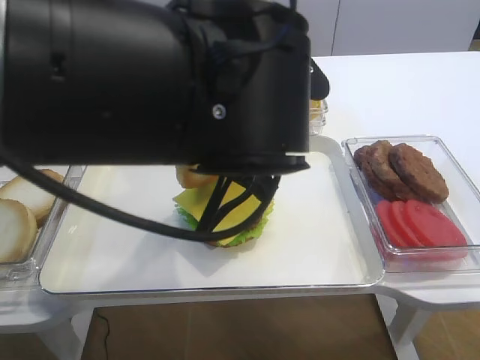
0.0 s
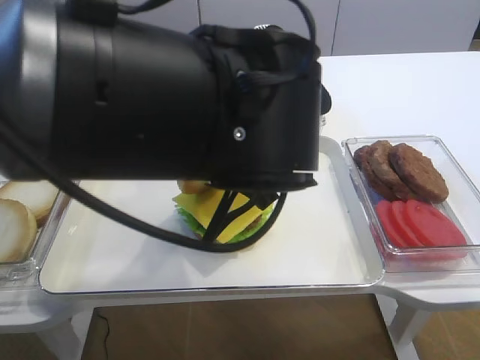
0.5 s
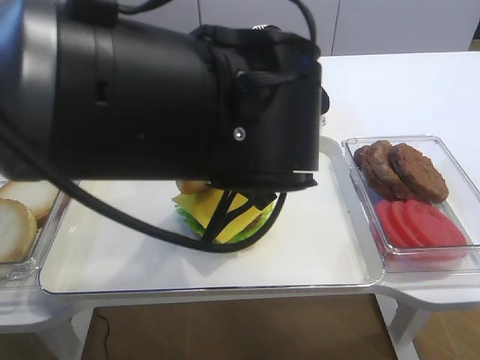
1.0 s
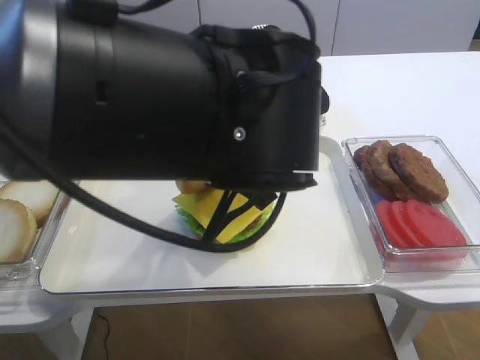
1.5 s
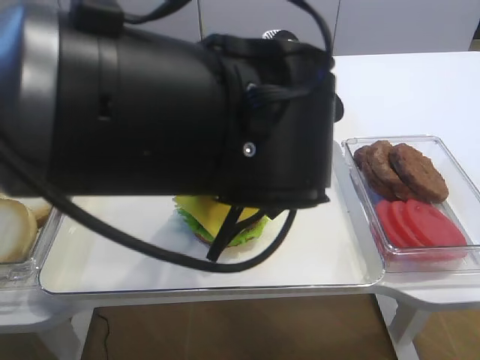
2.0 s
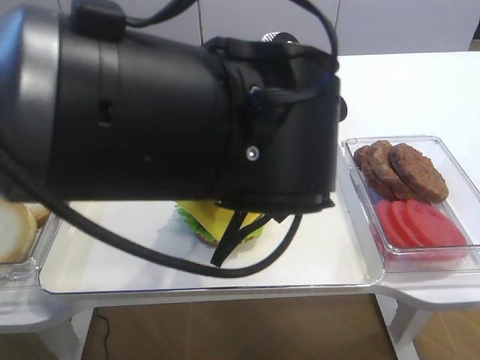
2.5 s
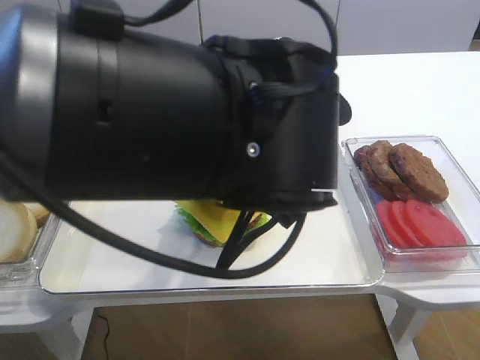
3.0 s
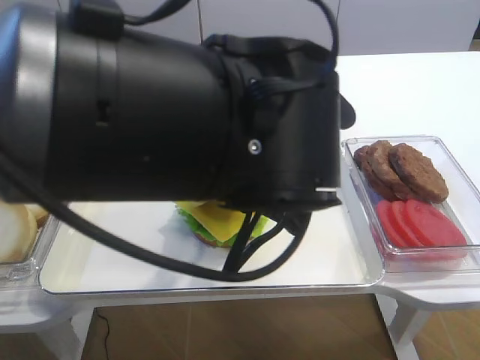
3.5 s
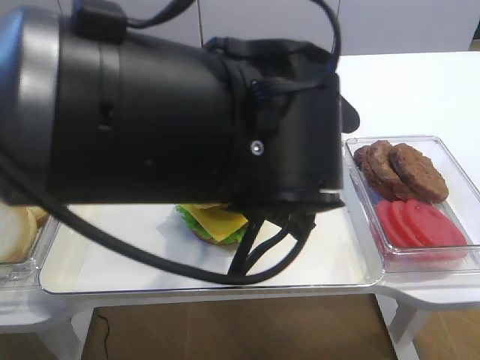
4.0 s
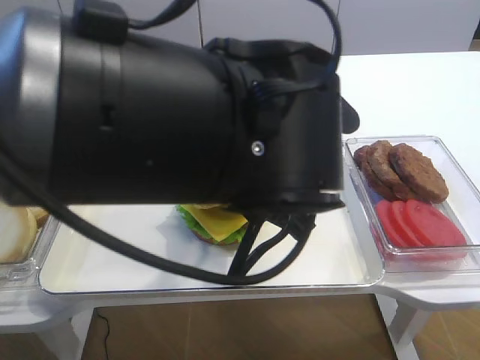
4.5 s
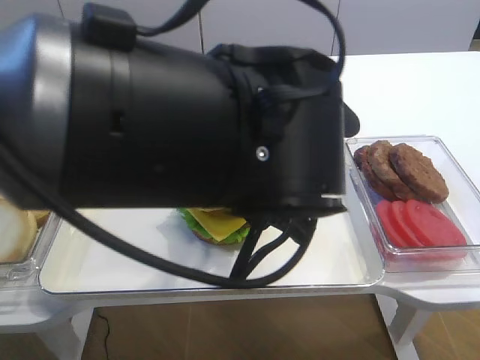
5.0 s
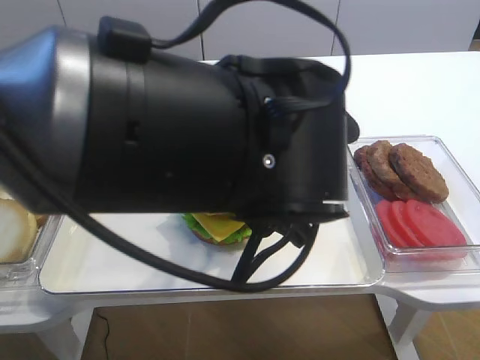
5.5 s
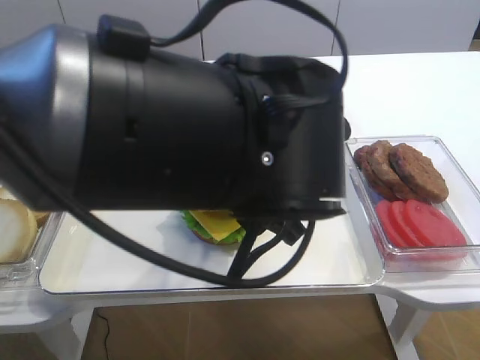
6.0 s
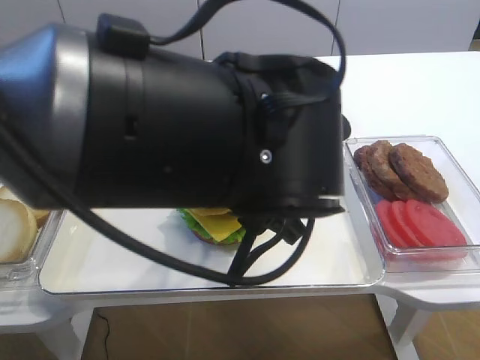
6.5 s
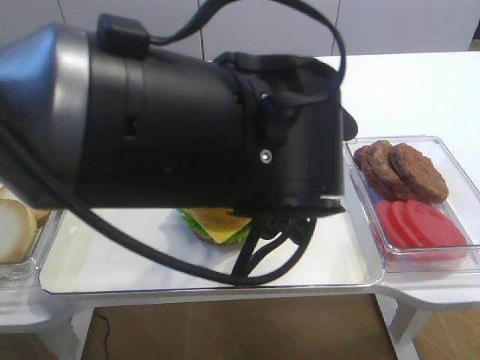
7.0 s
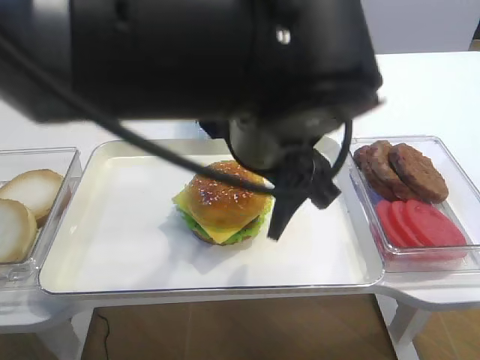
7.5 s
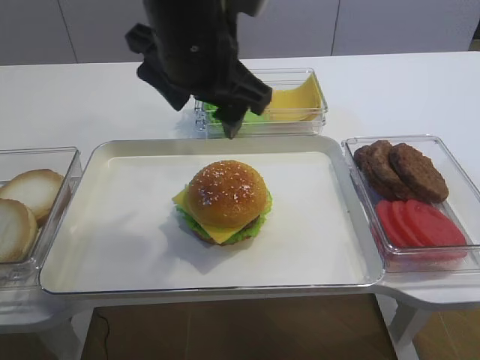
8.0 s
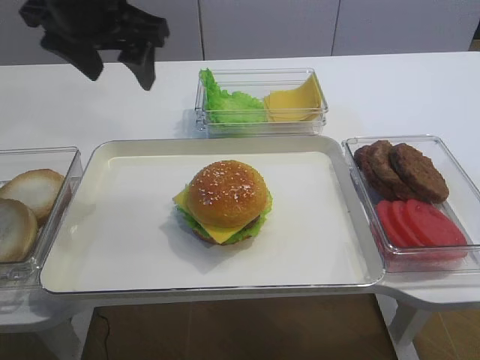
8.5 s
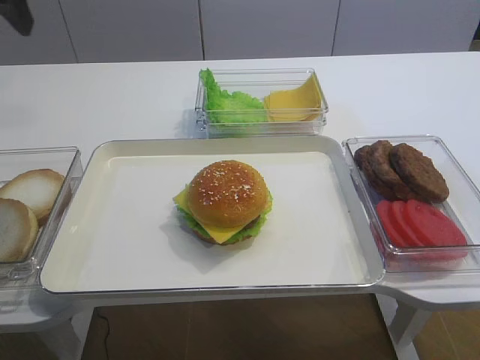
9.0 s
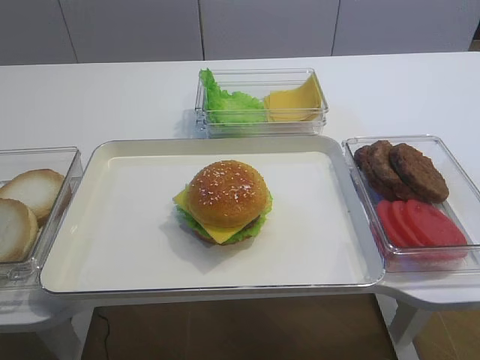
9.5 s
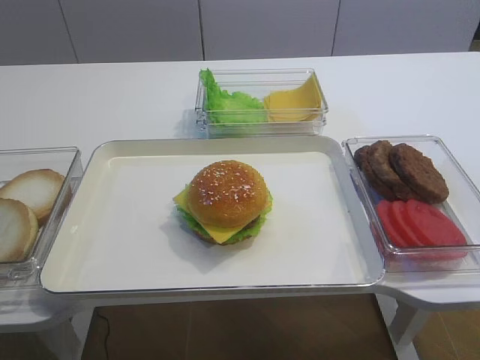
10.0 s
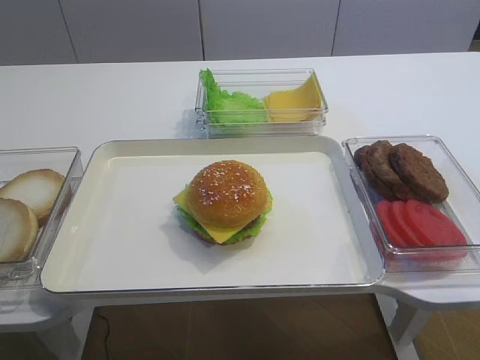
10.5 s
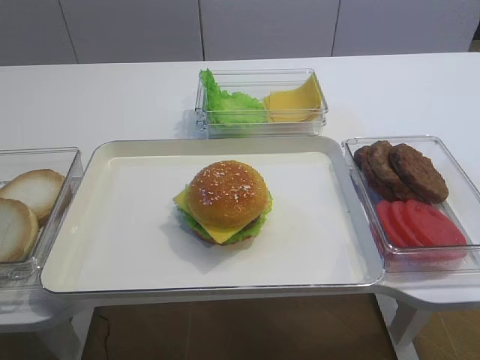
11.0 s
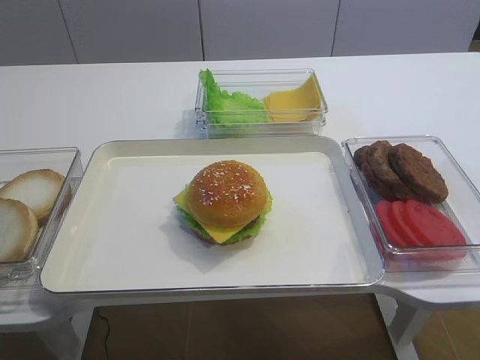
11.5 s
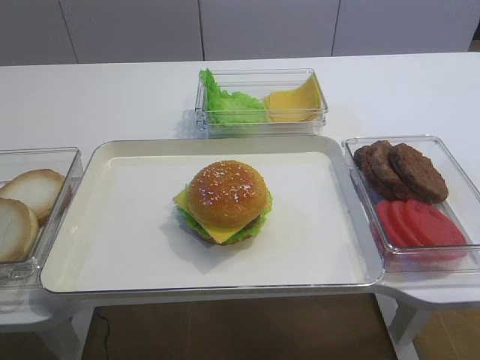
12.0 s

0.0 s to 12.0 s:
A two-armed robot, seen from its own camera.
Step, 0.0 to 7.0 s: Place the hamburger lid on the cheese slice with the left gripper.
2.0 to 4.0 s: There are only small adjustments of the grippers.
4.0 to 6.0 s: Both grippers stay put.
6.0 to 8.0 s: The left gripper travels forward, upward and to the left by about 10 cm.
8.0 to 10.0 s: The left gripper moves to the left and backward, approximately 35 cm.

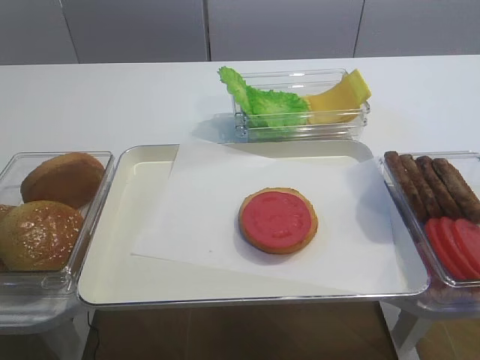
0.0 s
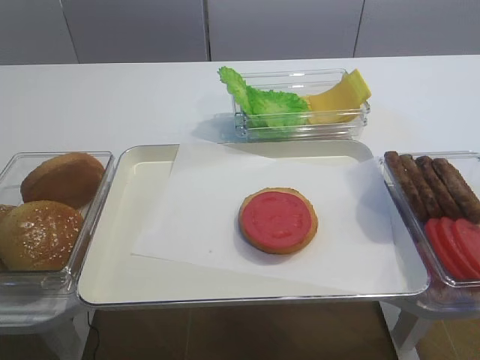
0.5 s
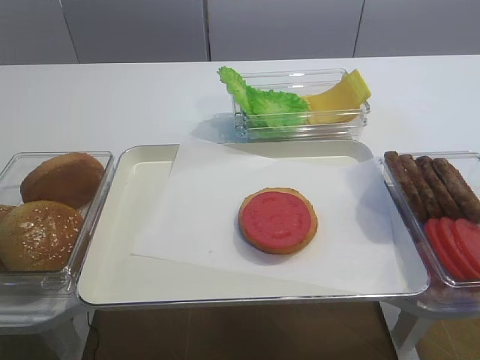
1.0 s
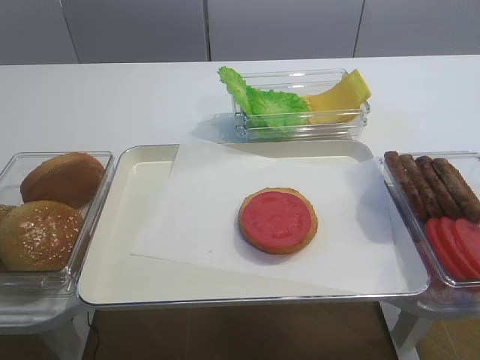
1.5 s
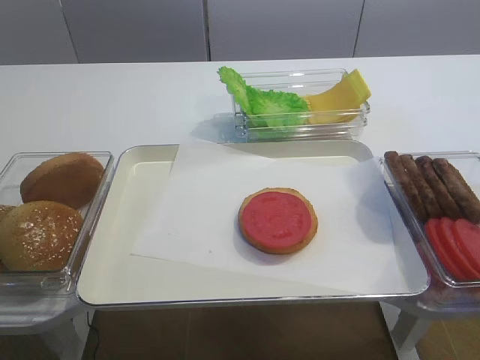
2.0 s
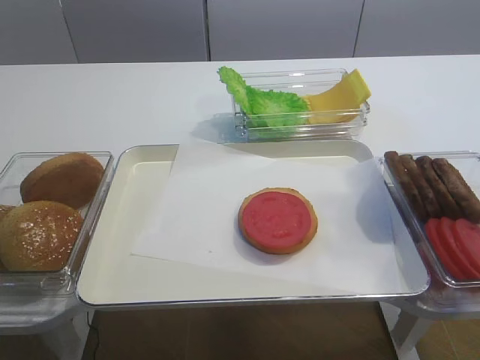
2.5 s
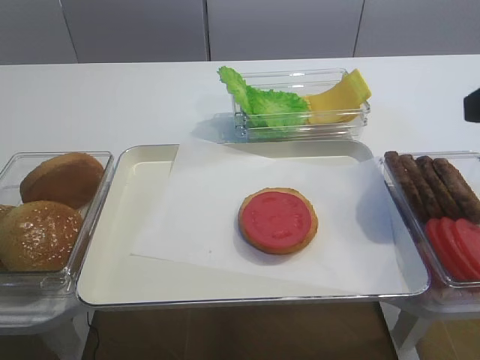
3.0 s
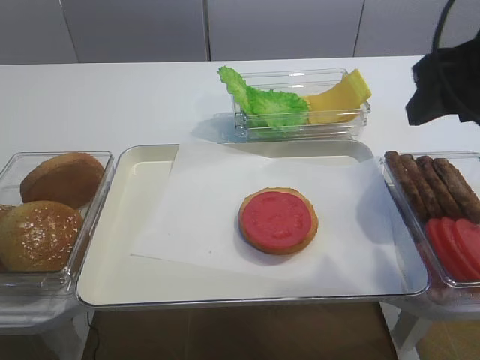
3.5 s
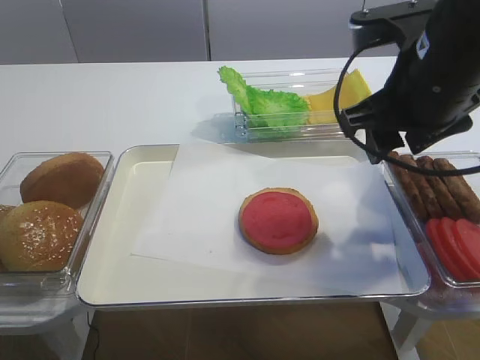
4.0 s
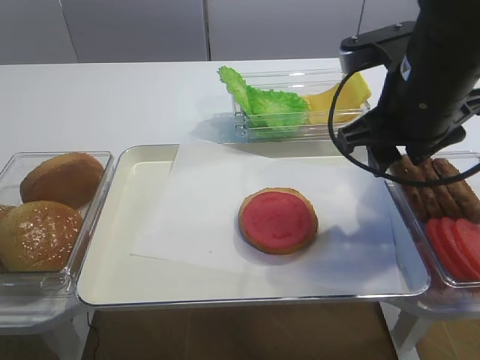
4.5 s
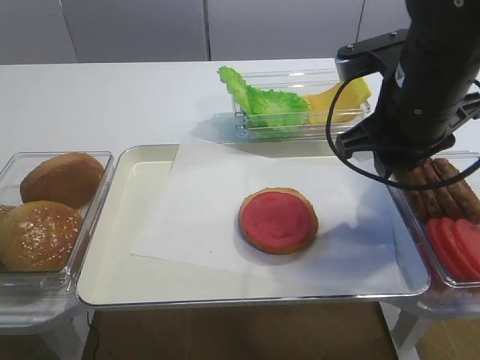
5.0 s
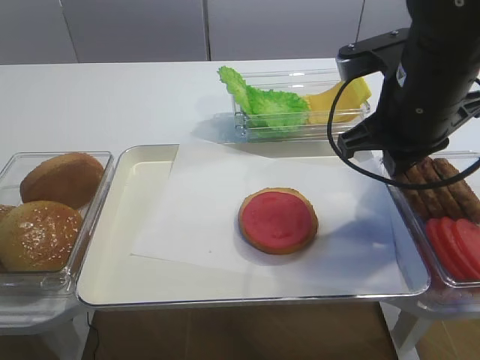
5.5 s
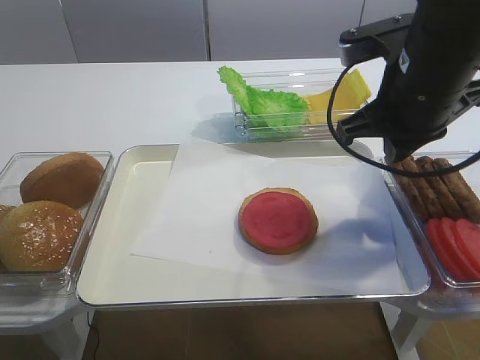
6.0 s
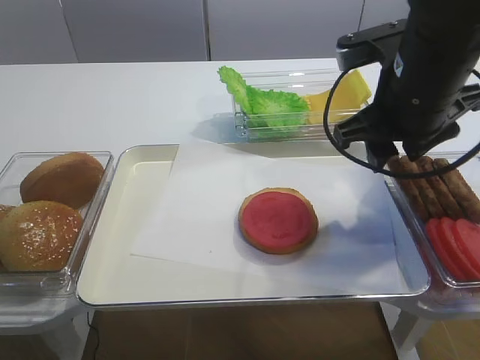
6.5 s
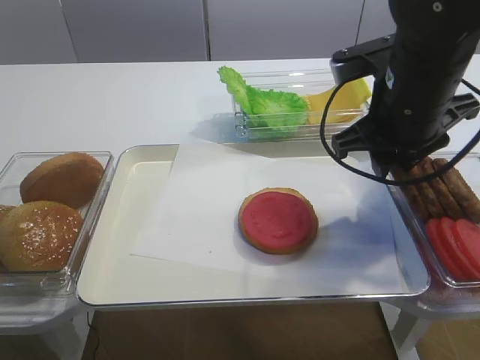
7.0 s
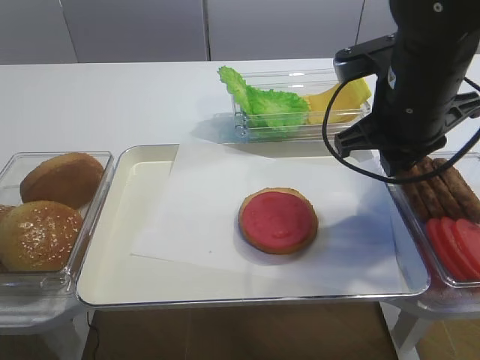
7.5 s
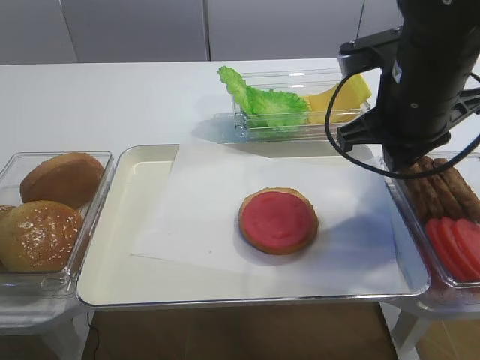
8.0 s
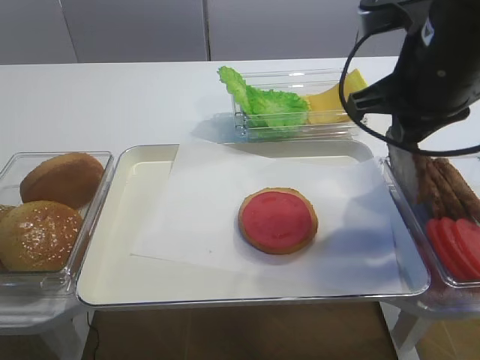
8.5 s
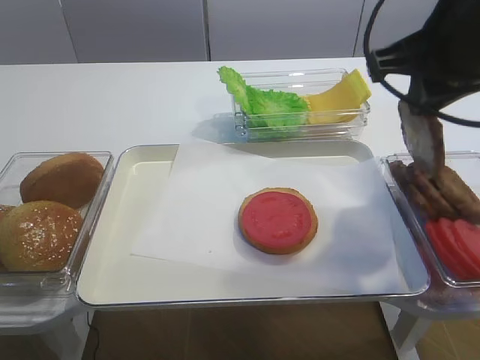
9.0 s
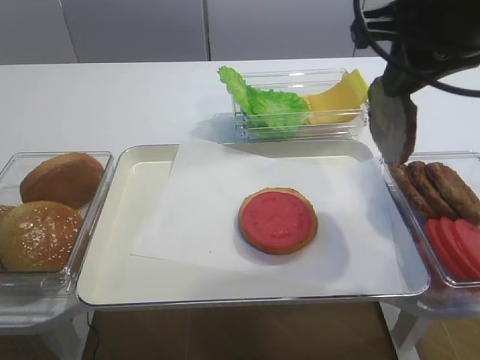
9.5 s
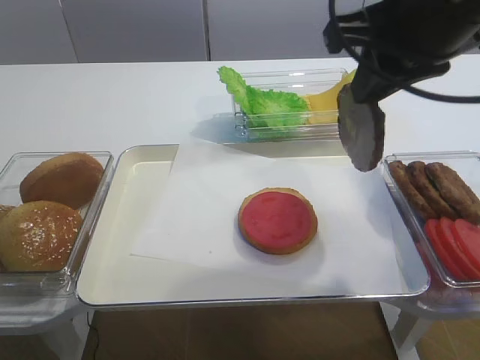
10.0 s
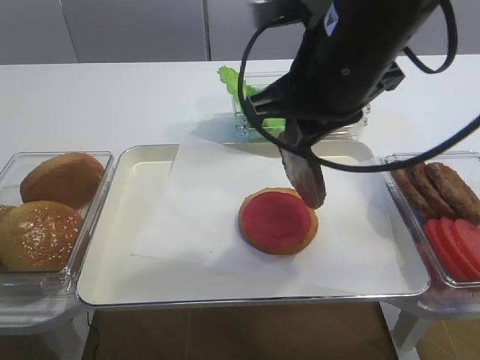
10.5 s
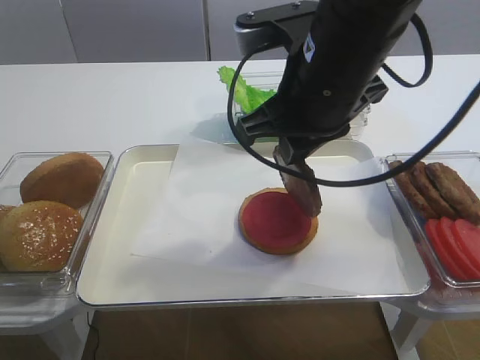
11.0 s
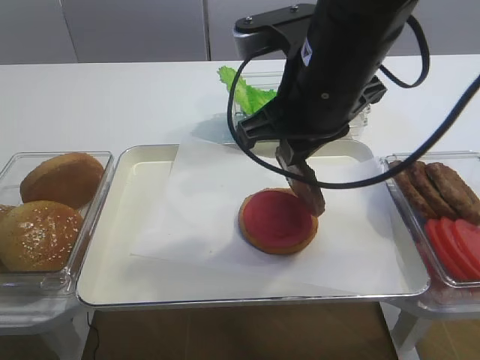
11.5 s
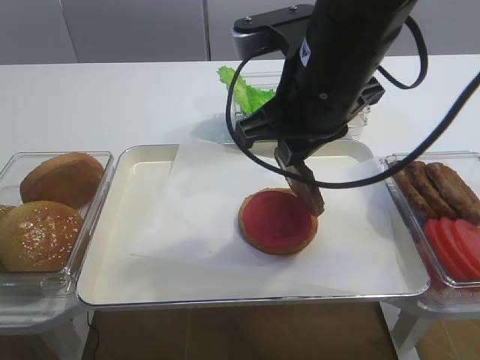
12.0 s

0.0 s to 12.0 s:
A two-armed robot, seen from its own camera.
Step, 0.0 to 9.0 s: Pick up the cutlet with the right gripper.
2.0 to 4.0 s: The right gripper moves forward and to the left, roughly 30 cm.
4.0 to 6.0 s: The right gripper closes.
6.0 to 8.0 s: The right gripper opens, then closes once more.
8.0 to 10.0 s: The right gripper moves upward, approximately 10 cm.
10.0 to 12.0 s: The right gripper goes some 10 cm to the left and downward.

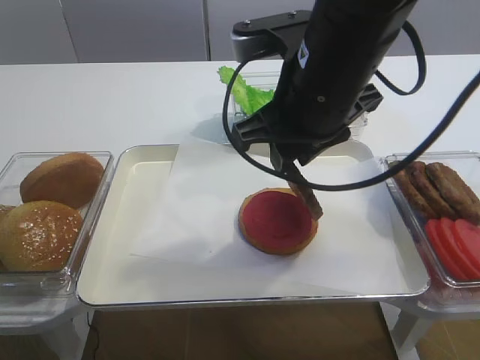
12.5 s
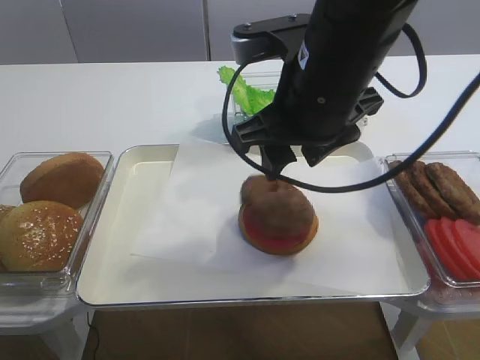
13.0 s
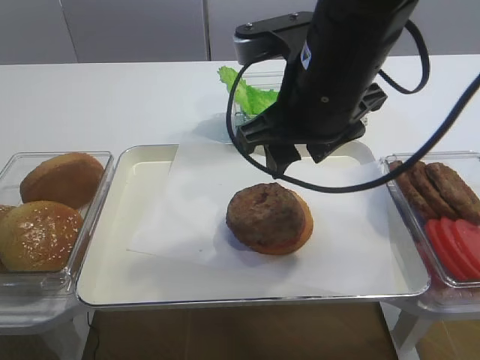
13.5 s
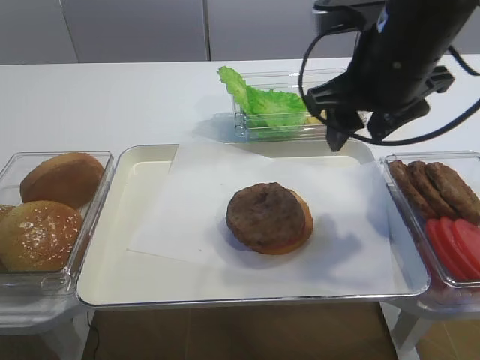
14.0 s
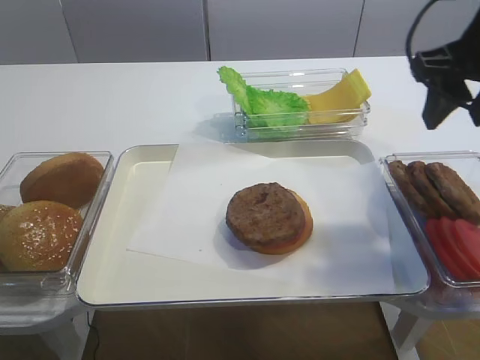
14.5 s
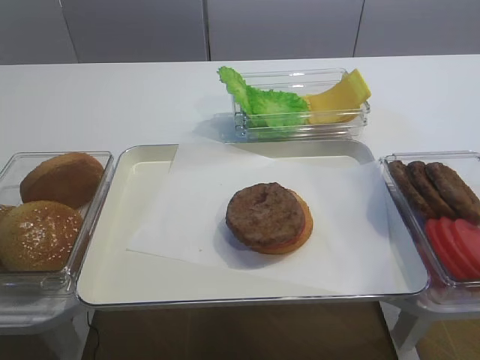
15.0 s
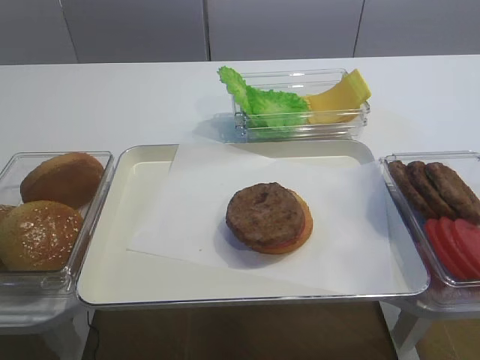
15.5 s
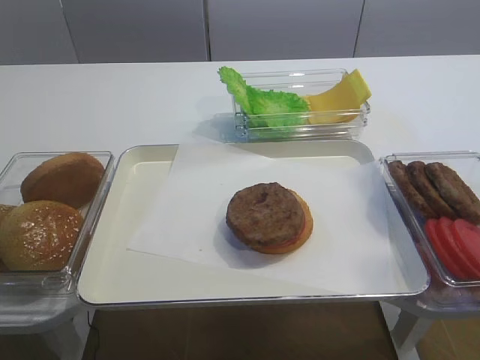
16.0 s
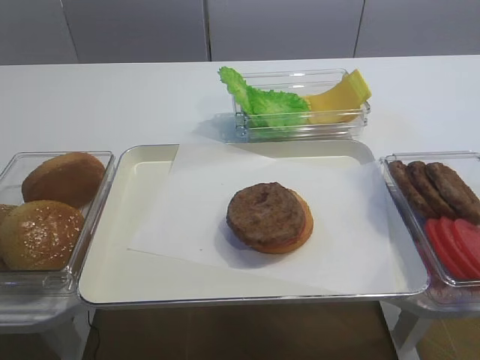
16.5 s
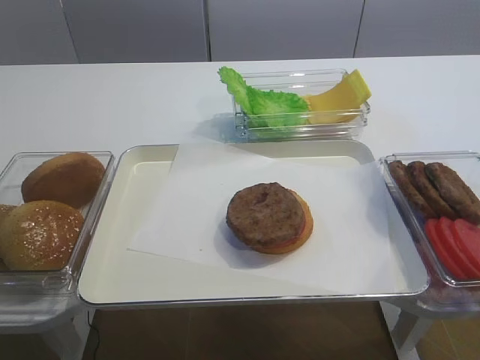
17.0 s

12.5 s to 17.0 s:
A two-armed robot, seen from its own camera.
12.5 to 14.5 s: The right gripper travels to the right by roughly 15 cm, and opens its fingers.
14.5 to 17.0 s: The right gripper goes about 30 cm backward.
